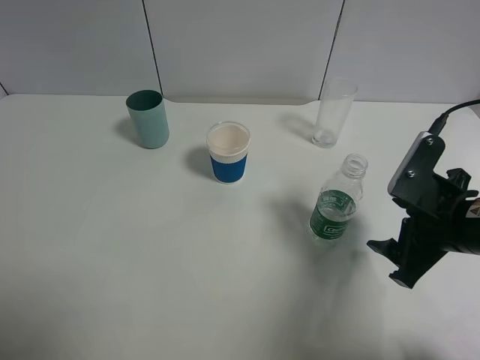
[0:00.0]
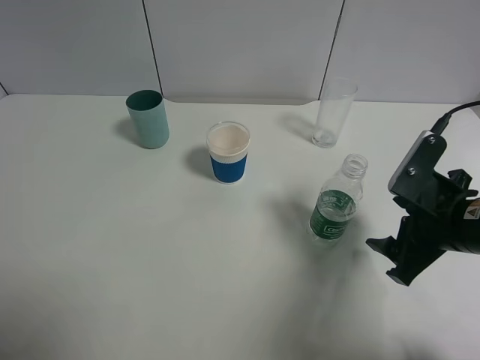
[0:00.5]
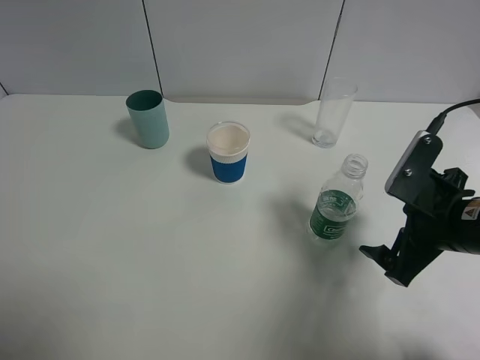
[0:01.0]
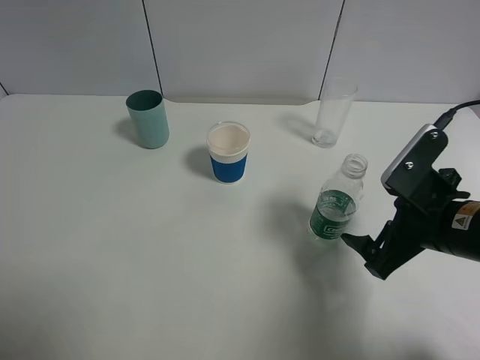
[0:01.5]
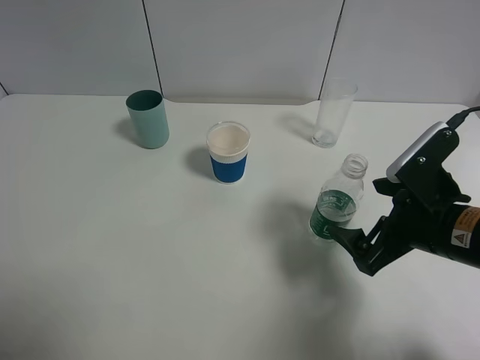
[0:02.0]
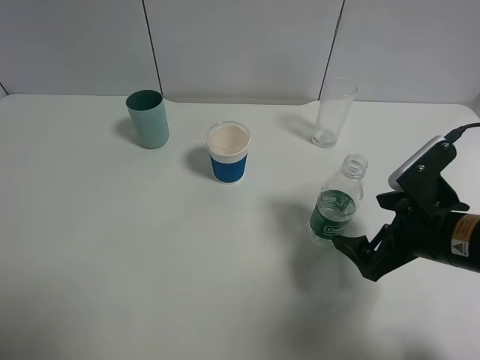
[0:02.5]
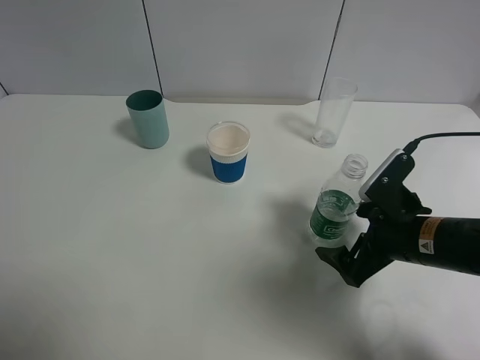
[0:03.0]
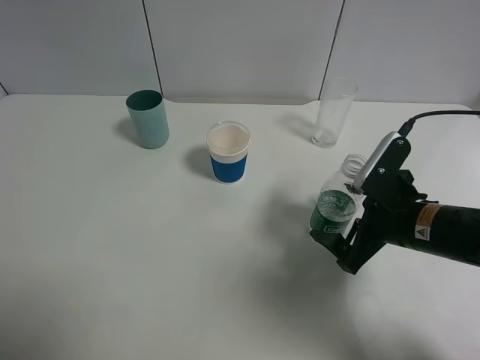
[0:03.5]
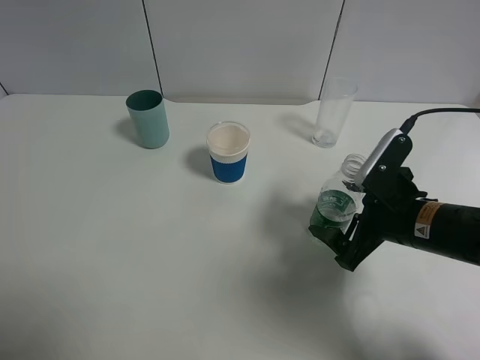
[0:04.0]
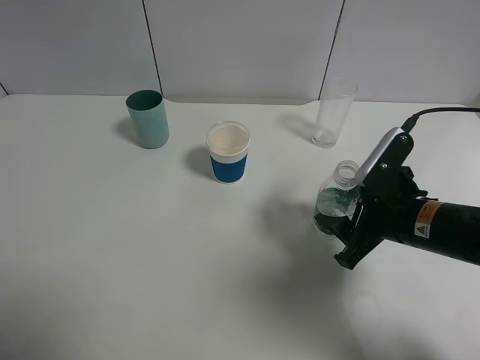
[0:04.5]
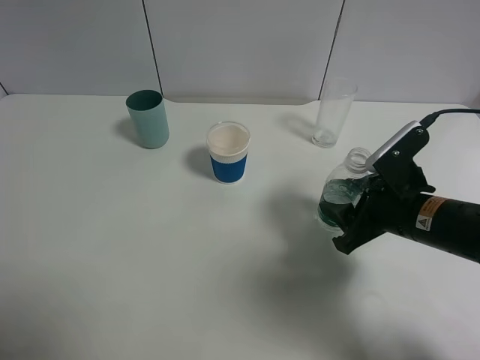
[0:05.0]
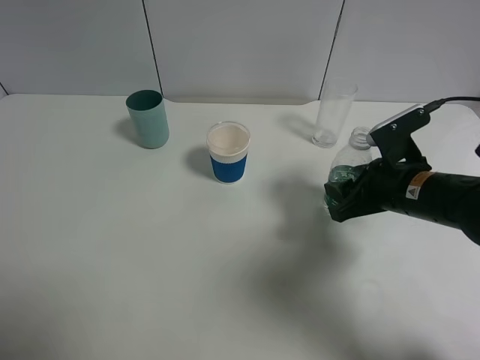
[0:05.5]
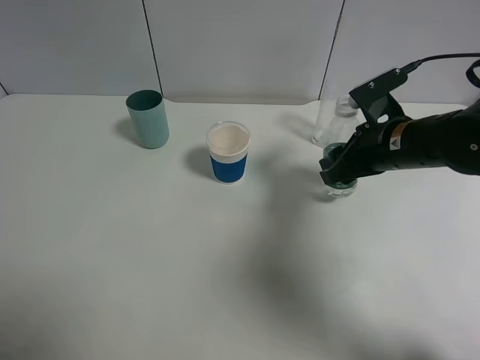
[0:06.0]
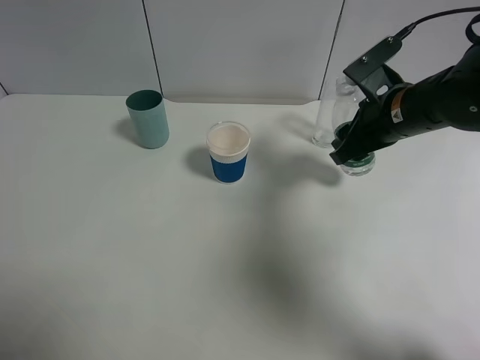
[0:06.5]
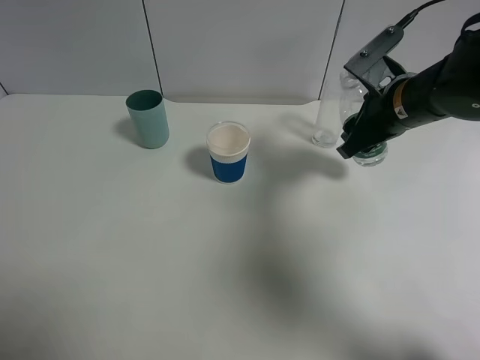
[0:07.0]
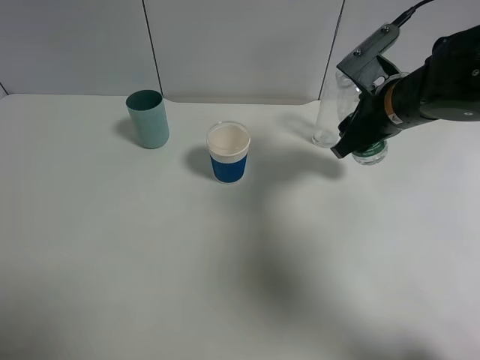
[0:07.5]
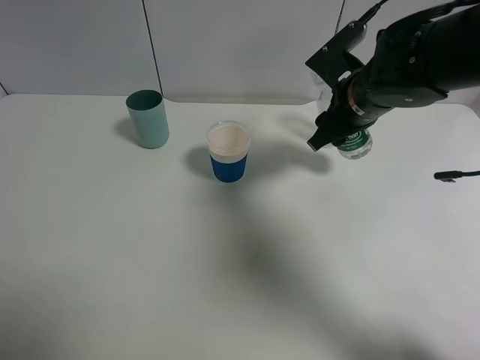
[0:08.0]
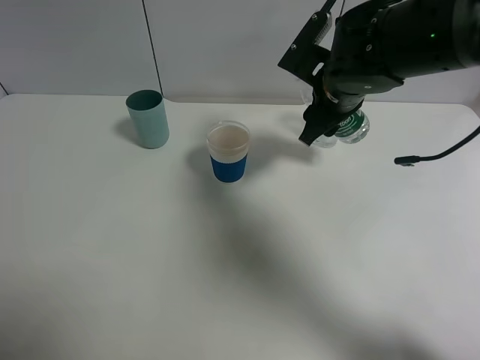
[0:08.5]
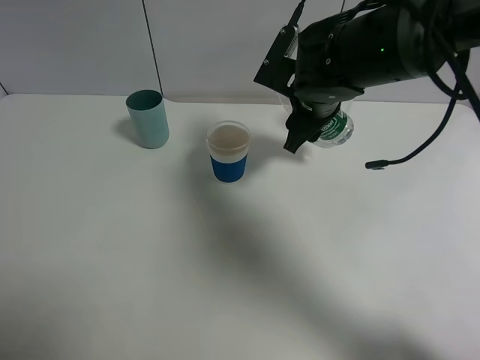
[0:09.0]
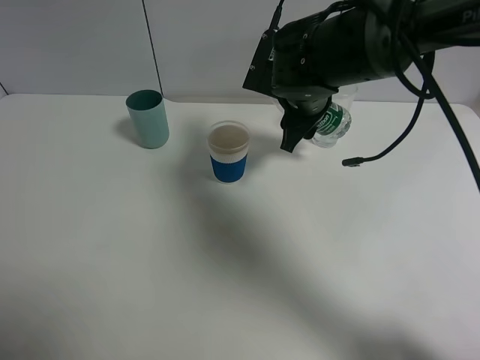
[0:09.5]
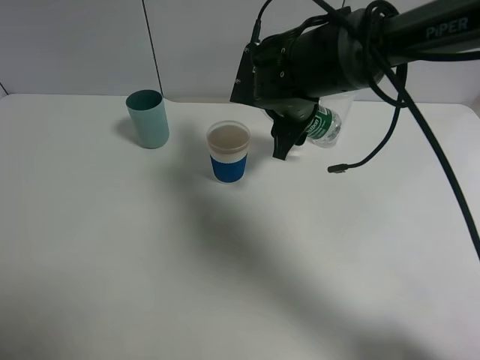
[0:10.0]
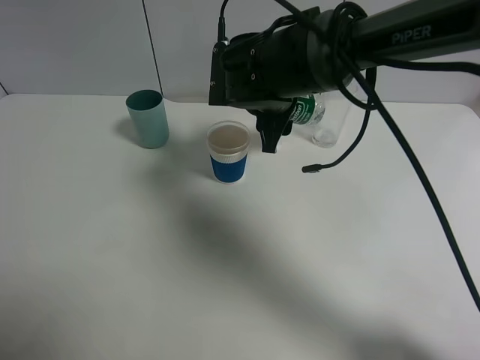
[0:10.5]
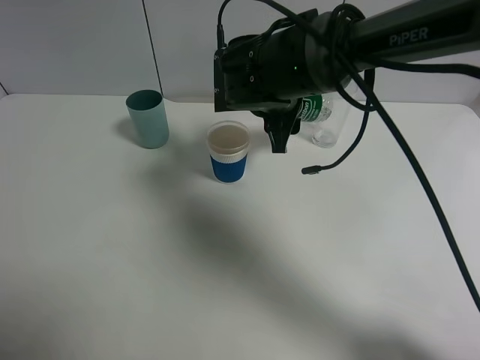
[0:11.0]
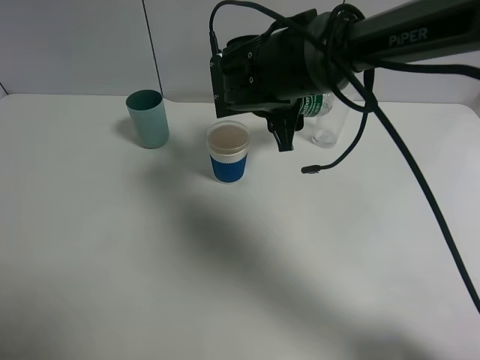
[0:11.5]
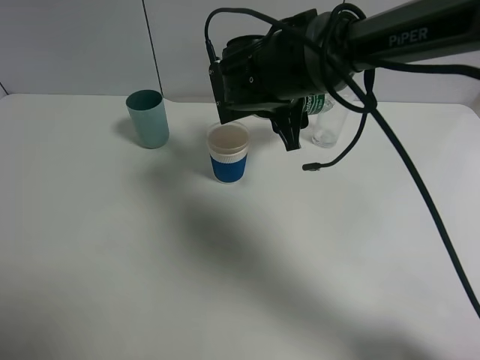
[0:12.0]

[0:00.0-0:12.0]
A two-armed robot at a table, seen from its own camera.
Task of the whole recording: use a gripper to hold the bottle of the drink and pour it into a random cup.
Step, 0.0 to 4.5 s: Grasp the mineral water bottle with the right gripper.
0.0 to 2.0 s: The right gripper opens its fingers.
2.0 to 4.0 s: The grippers stay close to where they were, moving slightly.
4.0 to 6.0 s: The right gripper travels forward by some 10 cm, and closes its fingers.
6.0 to 8.0 s: The right gripper moves some 5 cm.
8.0 to 10.0 s: The right gripper heads to the left, covering roughly 10 cm.

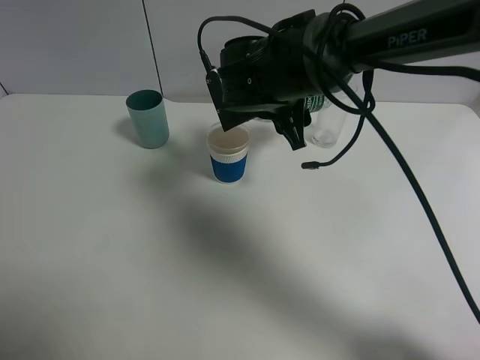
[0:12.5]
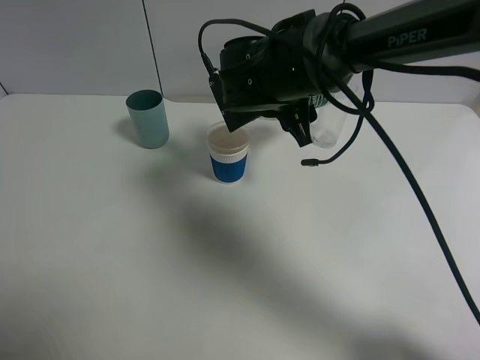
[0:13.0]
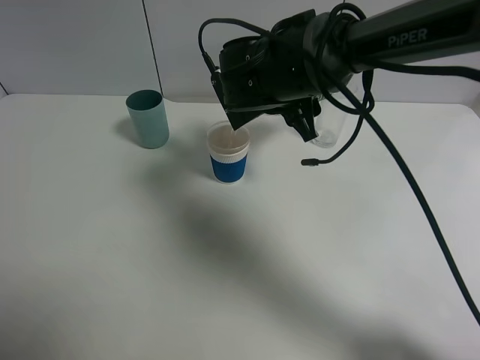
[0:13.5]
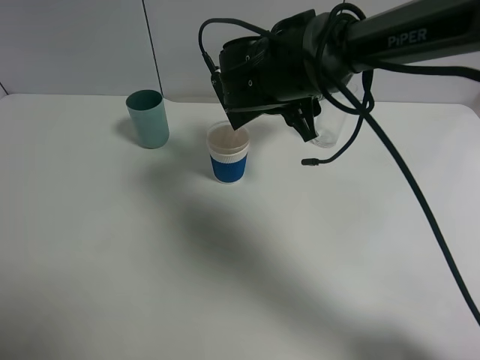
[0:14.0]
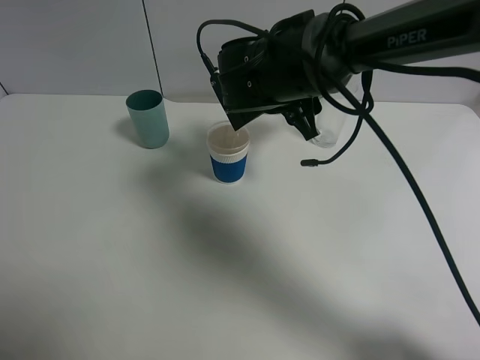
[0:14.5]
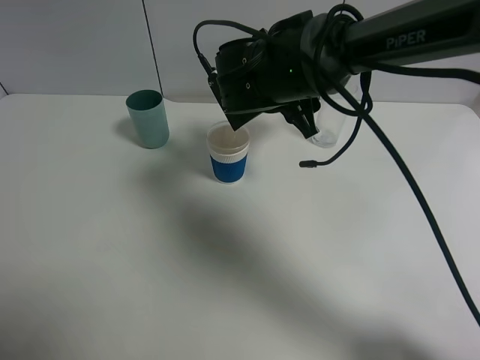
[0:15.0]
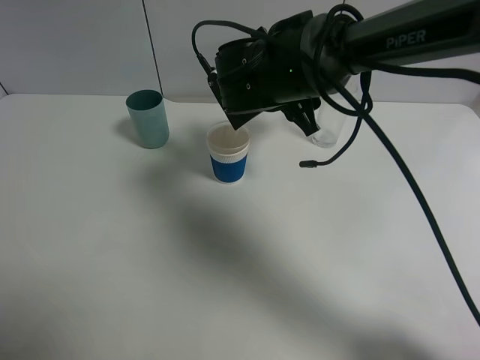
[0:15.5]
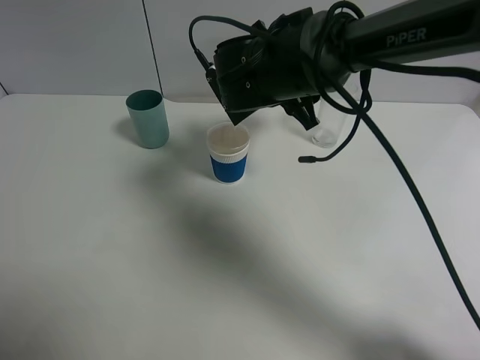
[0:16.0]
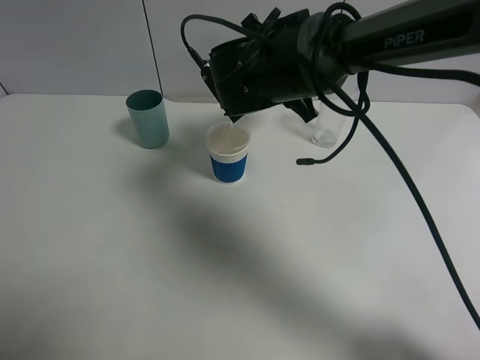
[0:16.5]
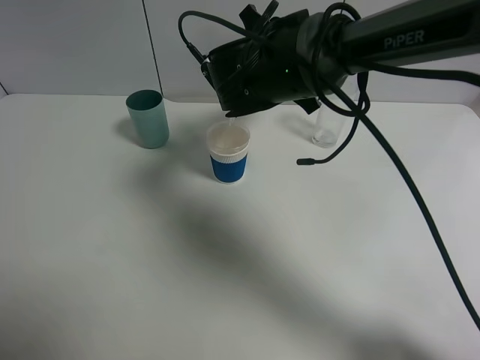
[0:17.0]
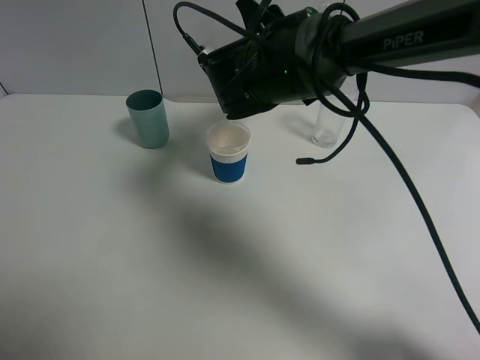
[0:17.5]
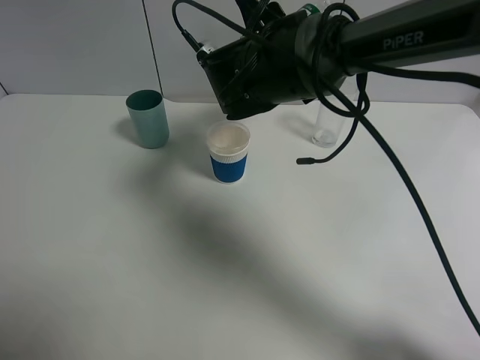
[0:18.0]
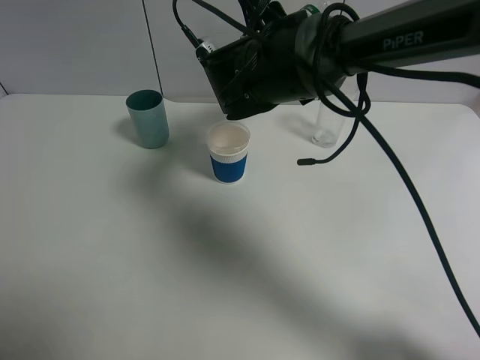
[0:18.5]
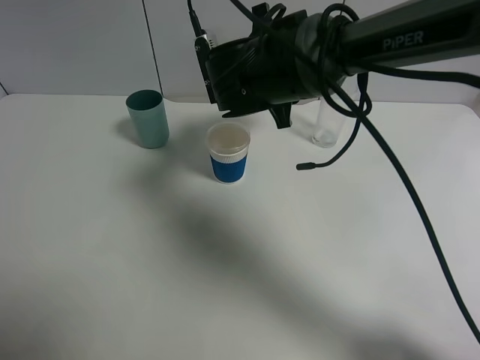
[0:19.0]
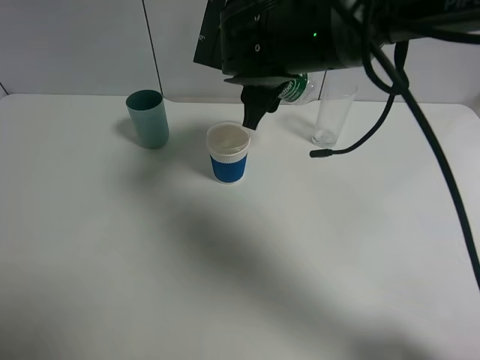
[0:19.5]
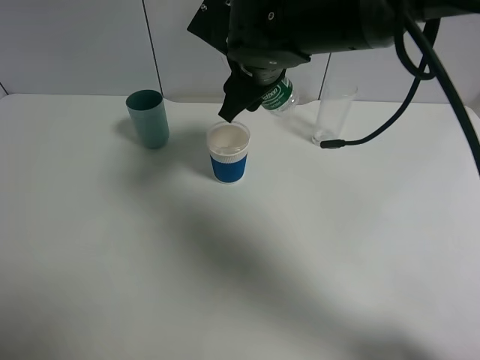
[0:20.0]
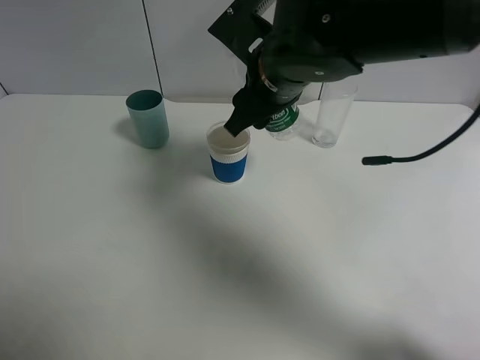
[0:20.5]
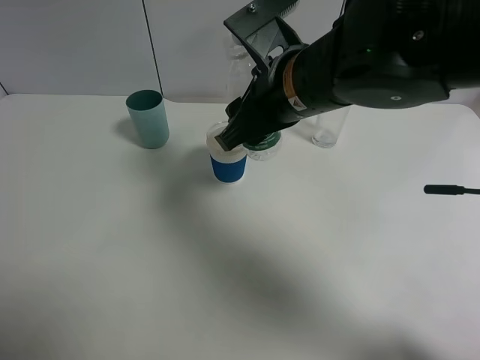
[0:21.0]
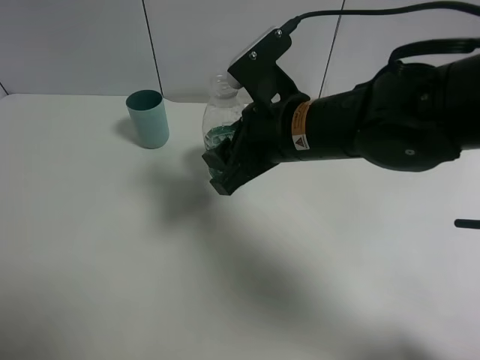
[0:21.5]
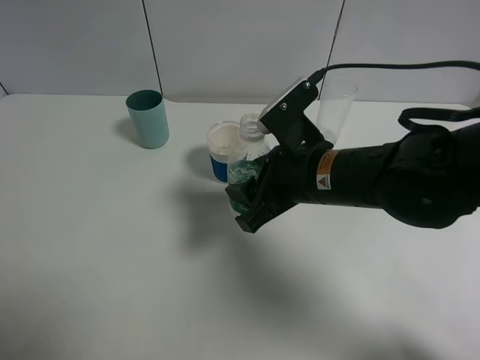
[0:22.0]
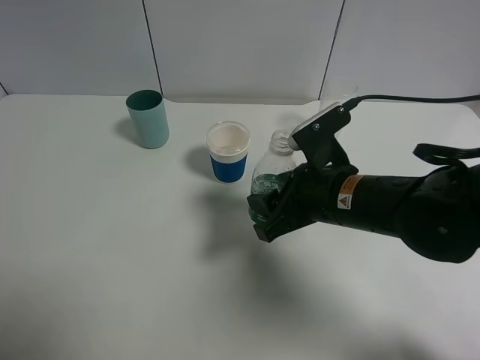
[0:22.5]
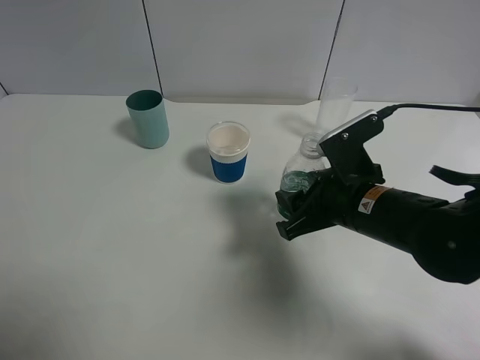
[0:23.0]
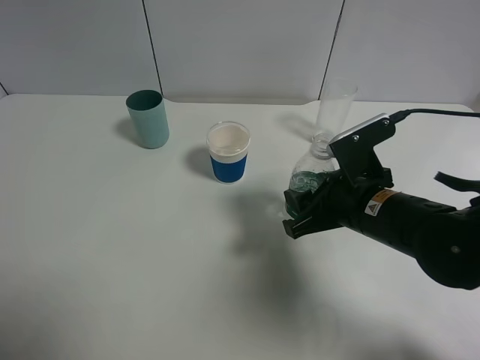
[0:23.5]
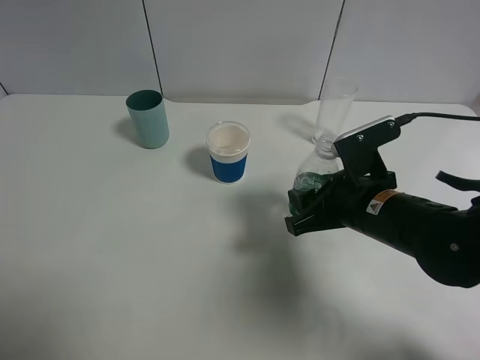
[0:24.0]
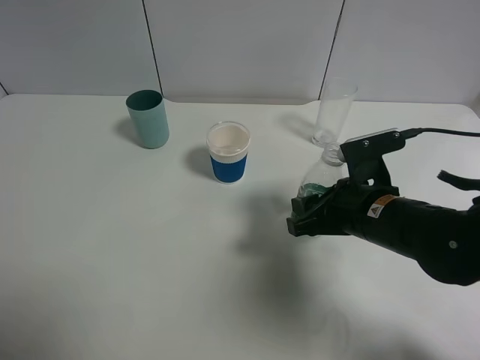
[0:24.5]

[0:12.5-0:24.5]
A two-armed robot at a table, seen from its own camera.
Task of the whole recording: use a gripper to hold the bottle of the drink and pour it into a random cup.
Step, 12.5 to 19.0 s: Pour the mineral water into the paper cup with the right gripper.
12.5 to 16.5 s: The grippers move only a little.
16.5 to 18.5 s: The grippers make only small movements.
18.5 to 20.5 s: The right gripper is displaced backward by approximately 5 cm.
20.5 to 22.5 s: The right gripper goes approximately 15 cm downward, backward and to the right.

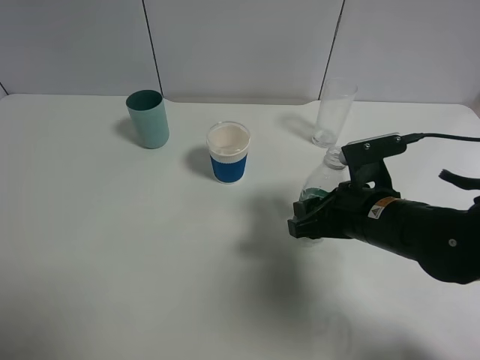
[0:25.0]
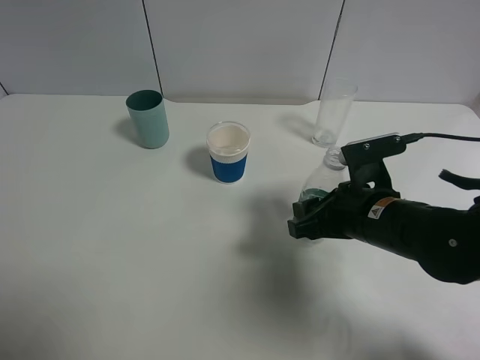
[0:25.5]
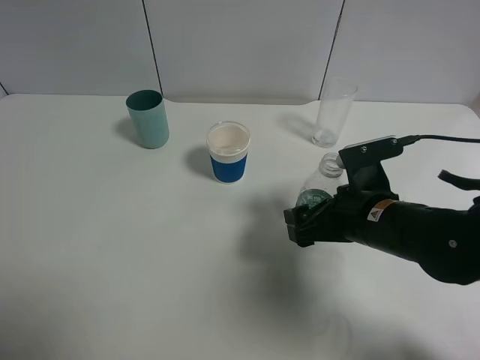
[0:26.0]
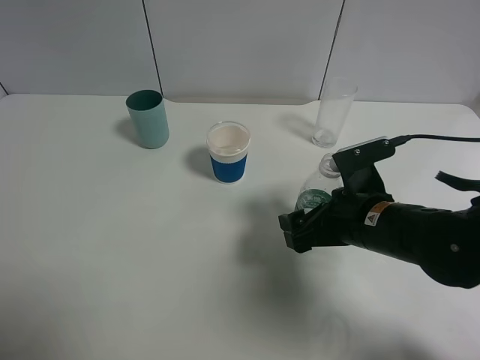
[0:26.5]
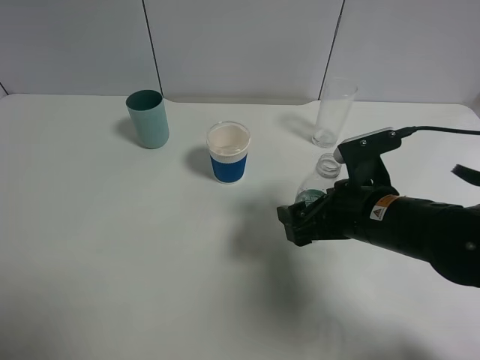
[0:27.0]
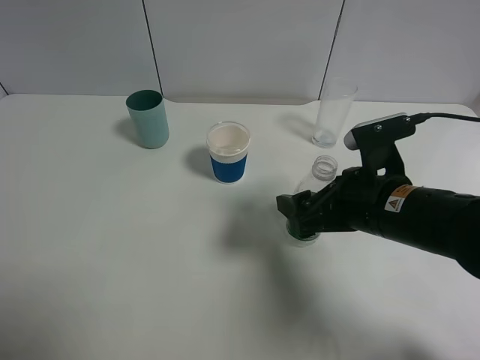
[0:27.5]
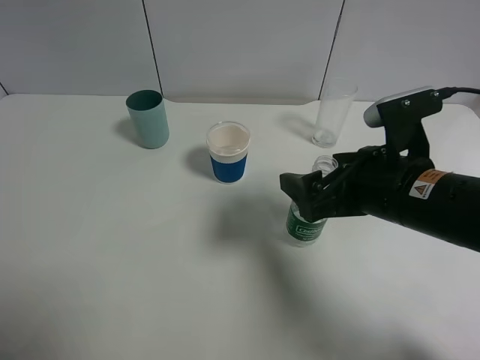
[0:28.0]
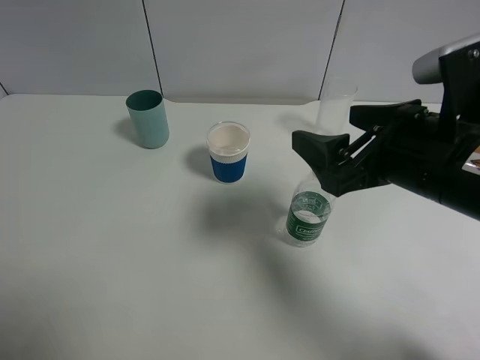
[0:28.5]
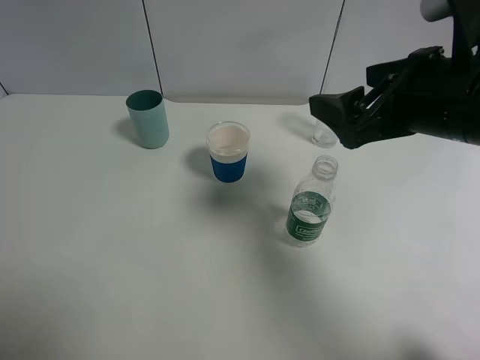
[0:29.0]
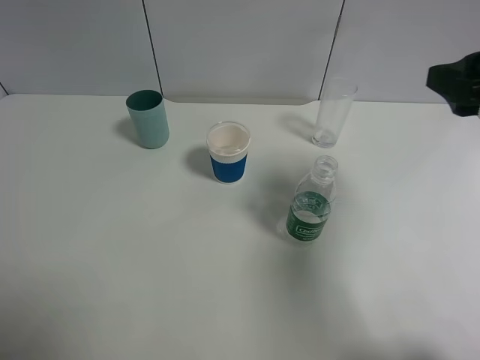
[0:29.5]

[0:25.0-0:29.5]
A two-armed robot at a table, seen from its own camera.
Task of the whole recording: use a gripper to hold the bottle of the drink and pour it into a random cup.
Step, 25.0 to 27.0 s: Place the mineral water bottle on the table with the right gripper.
25.0 to 27.0 s: The right gripper opens up.
27.0 to 29.5 s: The right gripper shifts some 20 cm upward and to the right.
